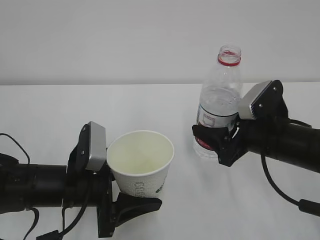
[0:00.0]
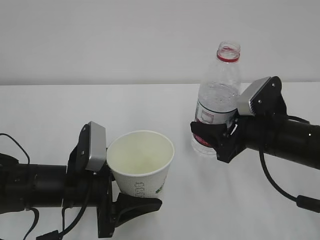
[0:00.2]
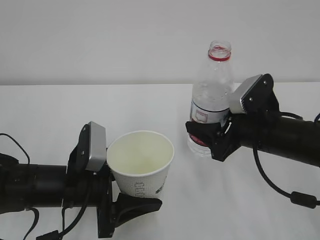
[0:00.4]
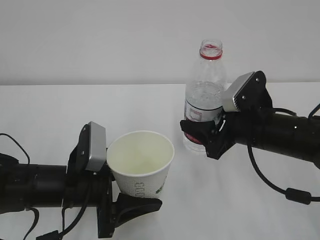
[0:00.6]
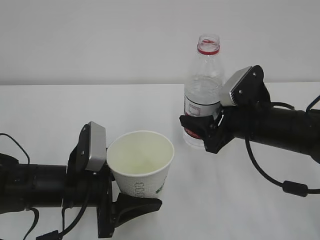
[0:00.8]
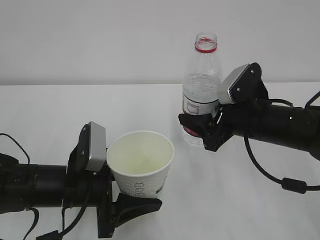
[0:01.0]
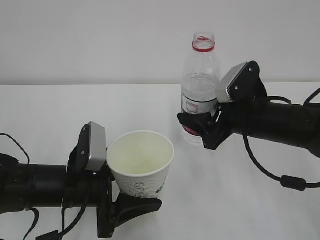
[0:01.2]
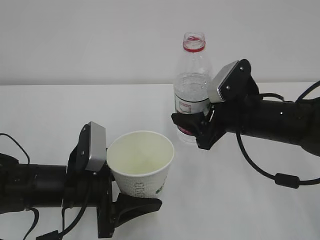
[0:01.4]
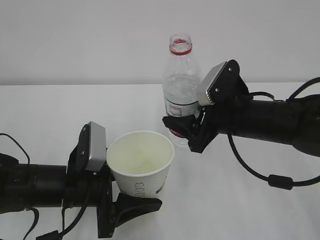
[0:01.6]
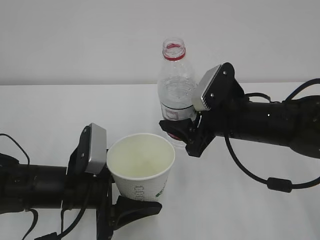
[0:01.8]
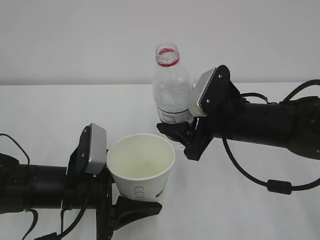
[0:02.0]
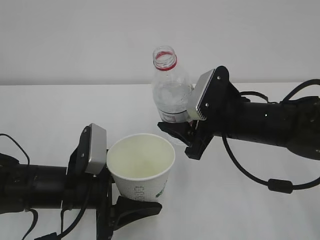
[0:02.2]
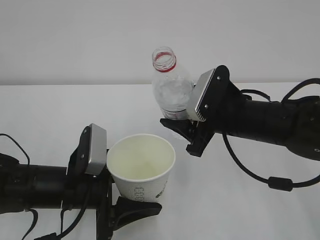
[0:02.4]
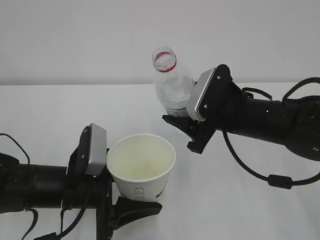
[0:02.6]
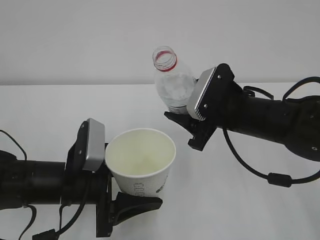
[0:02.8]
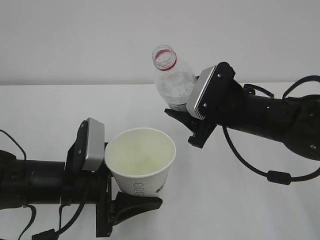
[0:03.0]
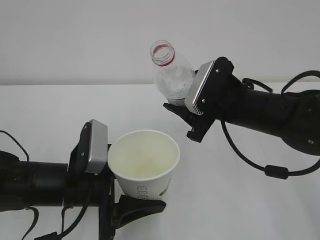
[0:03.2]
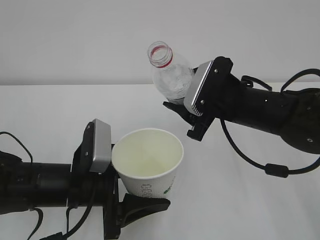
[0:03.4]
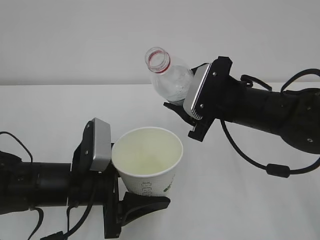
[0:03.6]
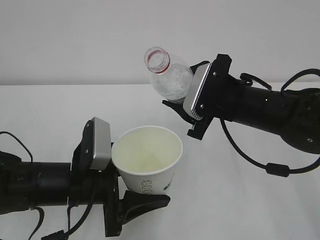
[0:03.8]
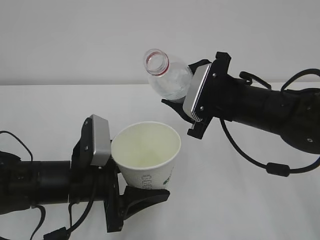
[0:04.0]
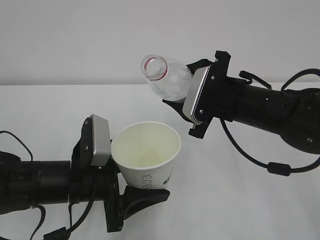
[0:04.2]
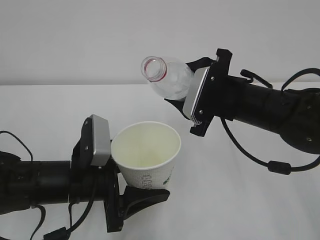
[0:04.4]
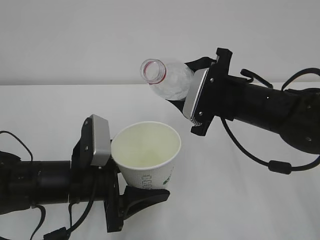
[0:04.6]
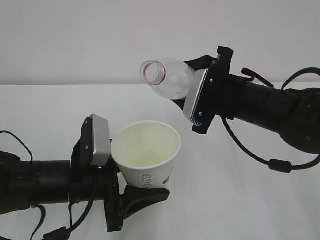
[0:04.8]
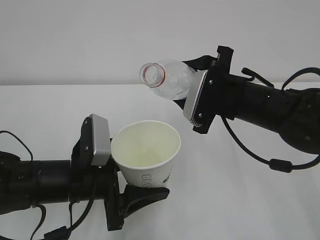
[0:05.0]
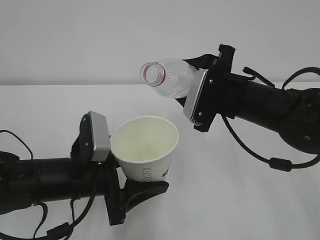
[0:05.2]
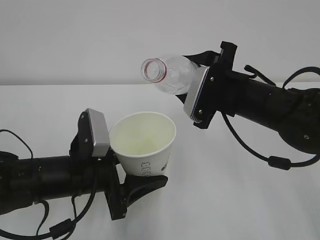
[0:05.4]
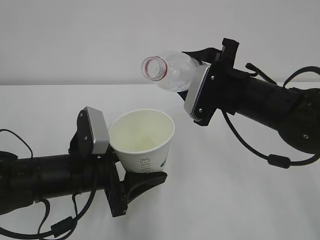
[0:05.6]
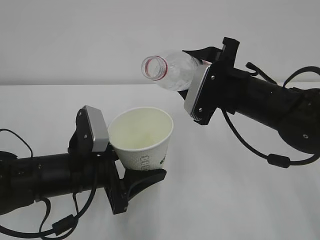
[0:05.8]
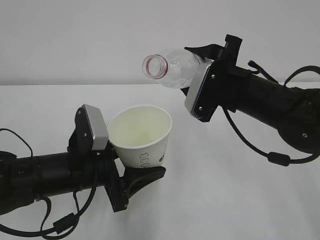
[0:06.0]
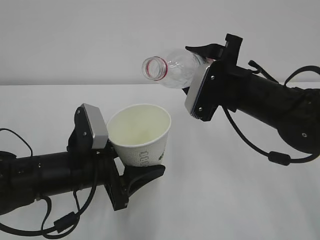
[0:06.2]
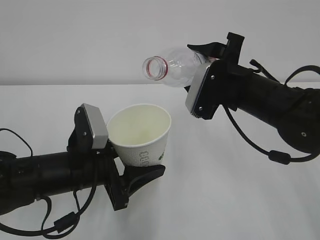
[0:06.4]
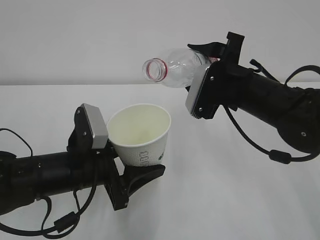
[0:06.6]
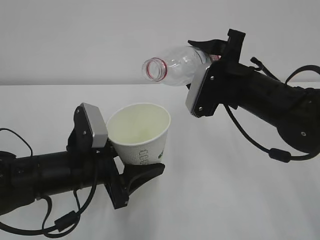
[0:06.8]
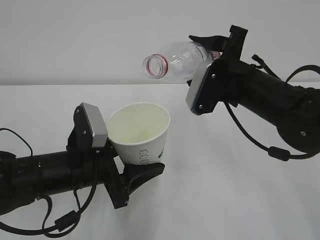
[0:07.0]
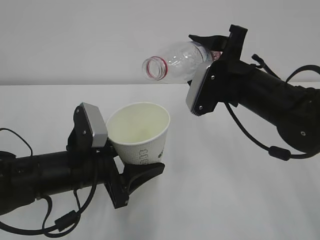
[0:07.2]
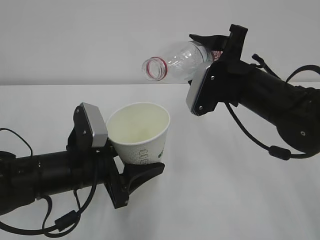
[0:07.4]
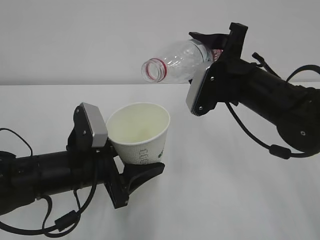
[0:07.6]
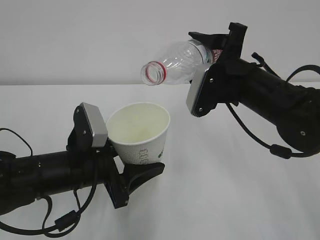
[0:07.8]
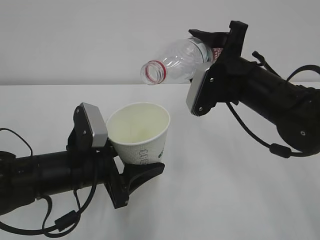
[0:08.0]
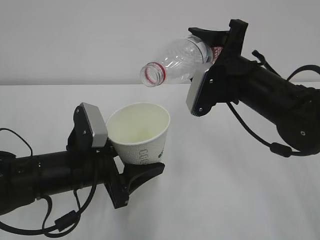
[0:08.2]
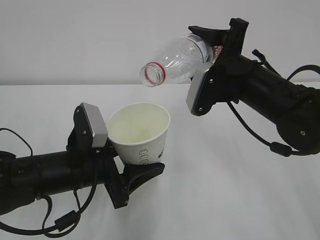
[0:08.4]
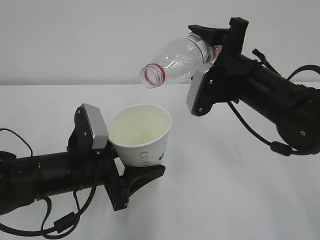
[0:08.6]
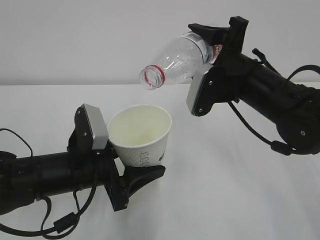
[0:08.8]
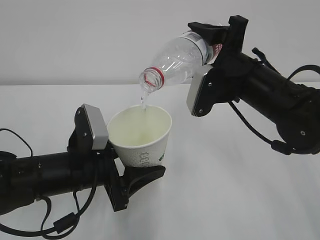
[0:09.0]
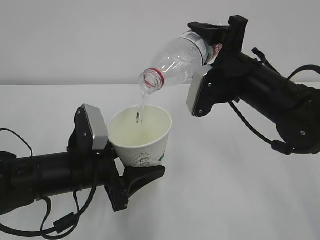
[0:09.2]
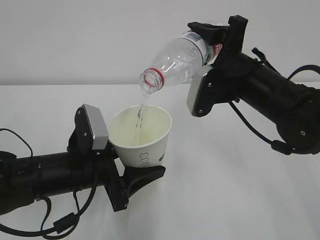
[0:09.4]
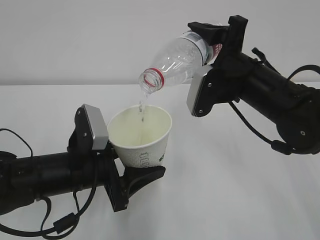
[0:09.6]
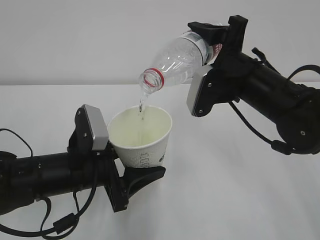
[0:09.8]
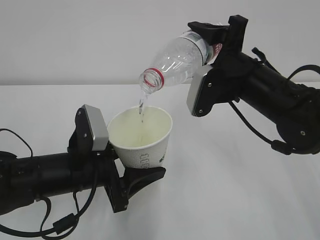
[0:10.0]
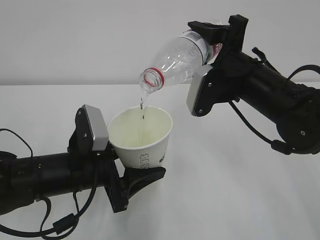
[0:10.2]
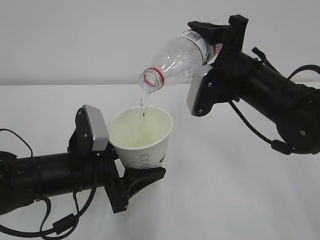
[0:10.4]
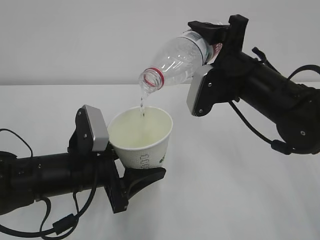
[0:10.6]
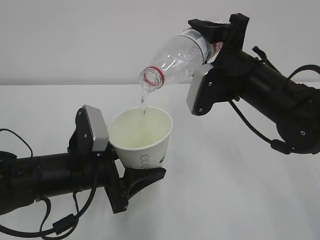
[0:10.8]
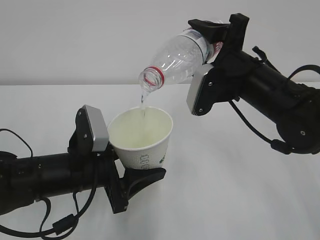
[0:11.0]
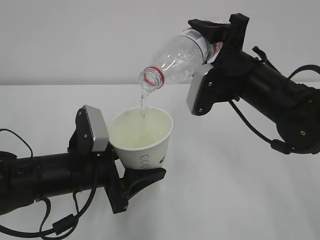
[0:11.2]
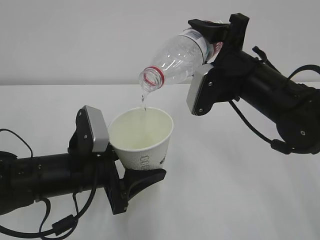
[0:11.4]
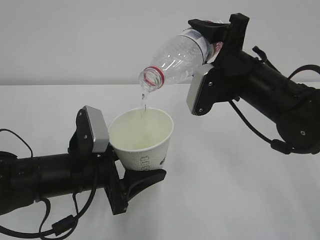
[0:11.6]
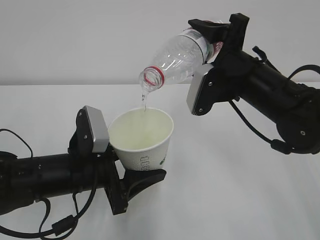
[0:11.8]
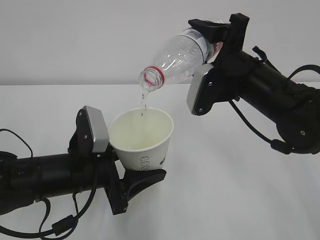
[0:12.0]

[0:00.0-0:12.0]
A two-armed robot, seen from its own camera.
0:00.0 to 0:01.6: The right gripper shifts by about 5 cm.
0:03.0 to 0:04.4: The grippers move only a little.
0:04.4 to 0:06.0: There are only small adjustments of the grippers.
0:06.0 to 0:07.6: The grippers make only small movements.
0:07.6 to 0:09.0: The grippers make only small movements.
0:09.0 to 0:12.0: Both grippers stay put.

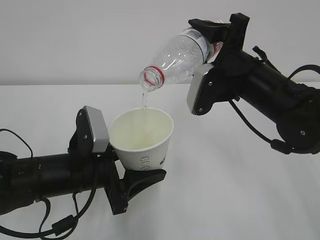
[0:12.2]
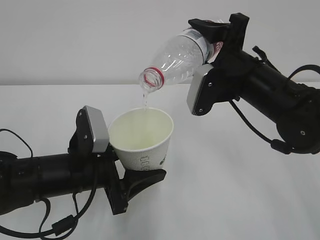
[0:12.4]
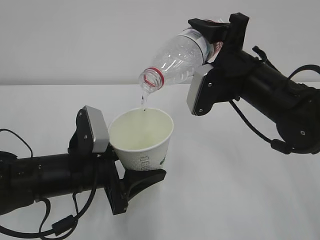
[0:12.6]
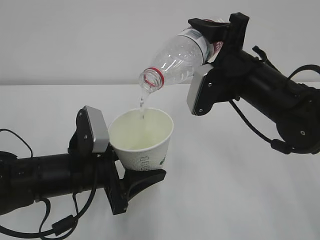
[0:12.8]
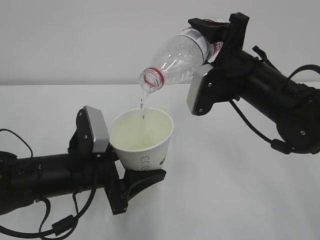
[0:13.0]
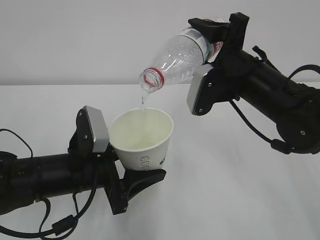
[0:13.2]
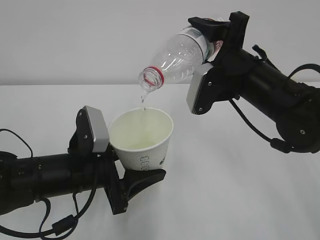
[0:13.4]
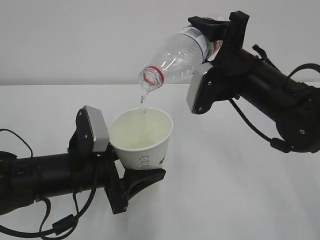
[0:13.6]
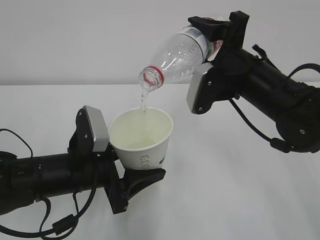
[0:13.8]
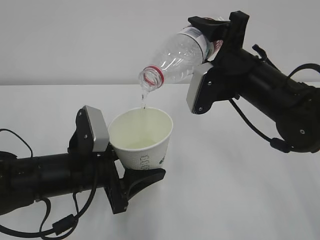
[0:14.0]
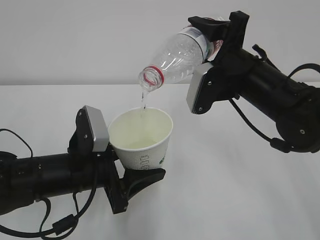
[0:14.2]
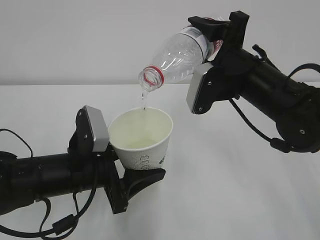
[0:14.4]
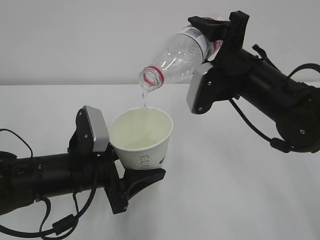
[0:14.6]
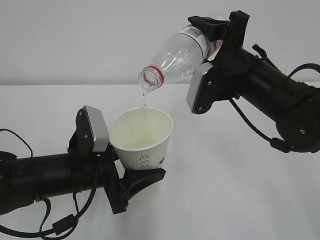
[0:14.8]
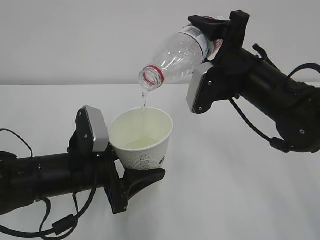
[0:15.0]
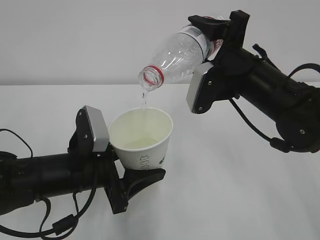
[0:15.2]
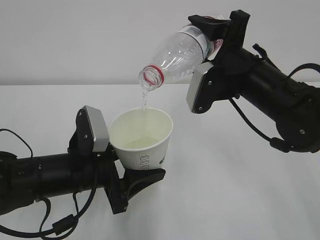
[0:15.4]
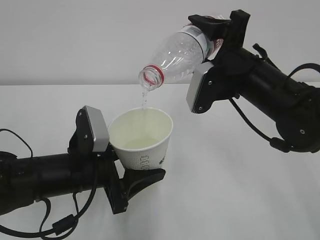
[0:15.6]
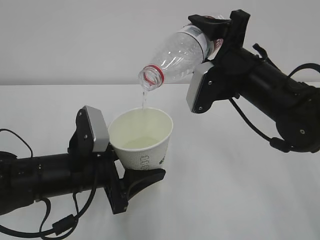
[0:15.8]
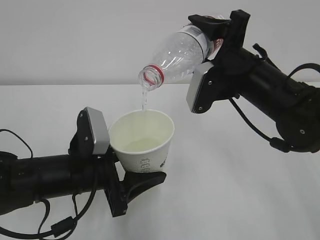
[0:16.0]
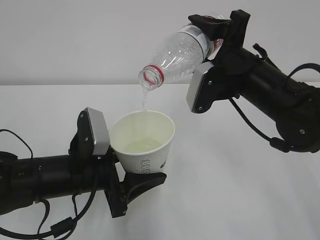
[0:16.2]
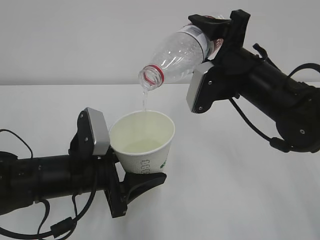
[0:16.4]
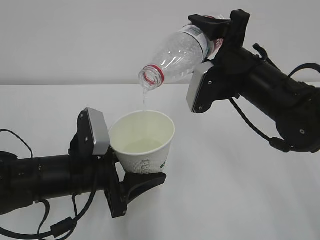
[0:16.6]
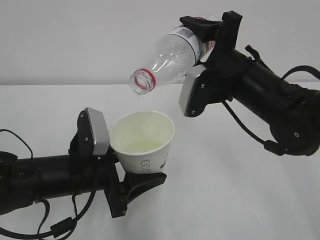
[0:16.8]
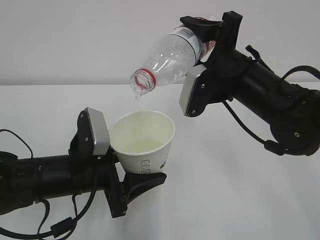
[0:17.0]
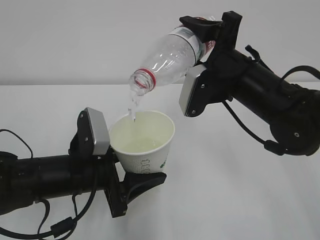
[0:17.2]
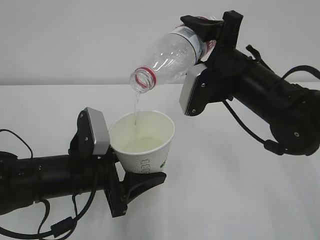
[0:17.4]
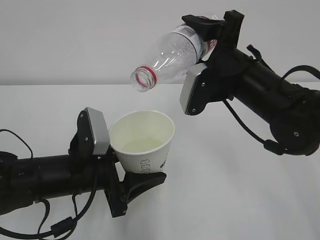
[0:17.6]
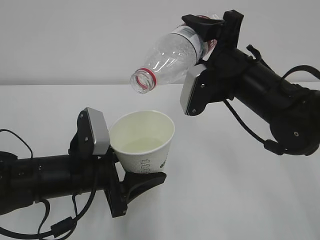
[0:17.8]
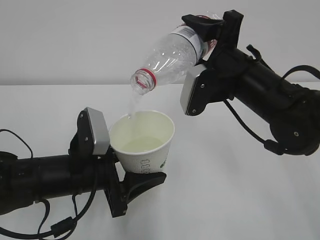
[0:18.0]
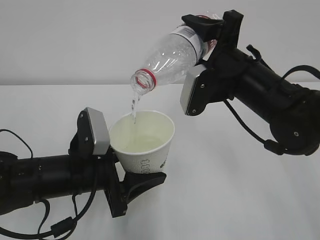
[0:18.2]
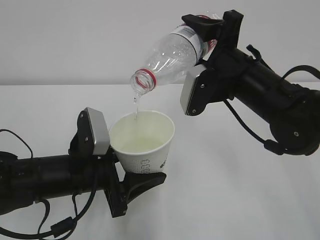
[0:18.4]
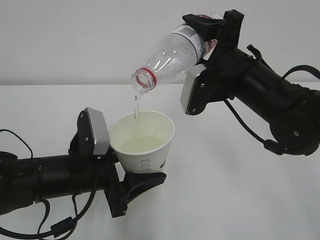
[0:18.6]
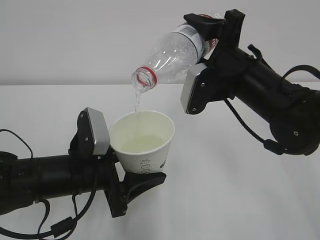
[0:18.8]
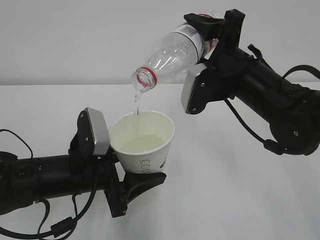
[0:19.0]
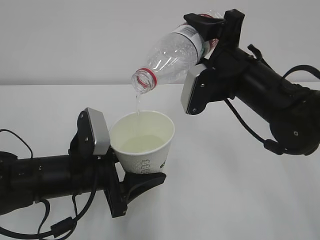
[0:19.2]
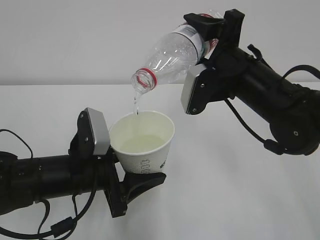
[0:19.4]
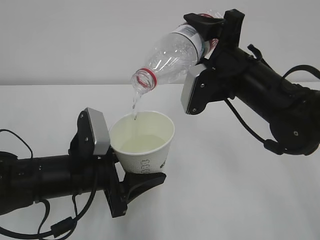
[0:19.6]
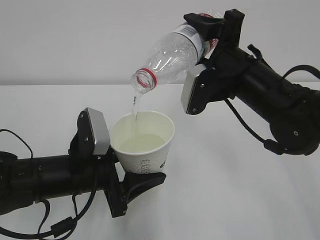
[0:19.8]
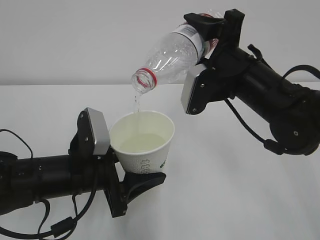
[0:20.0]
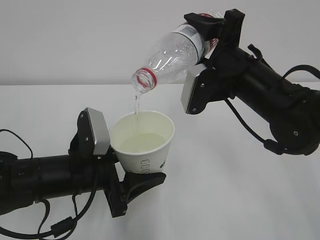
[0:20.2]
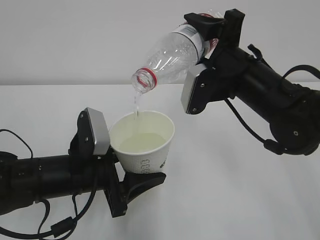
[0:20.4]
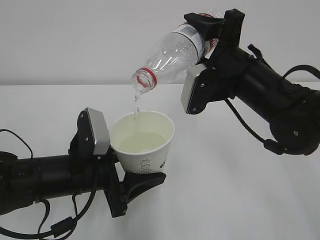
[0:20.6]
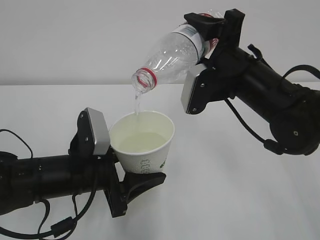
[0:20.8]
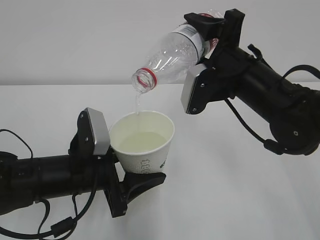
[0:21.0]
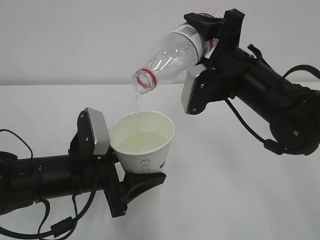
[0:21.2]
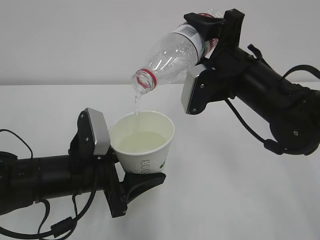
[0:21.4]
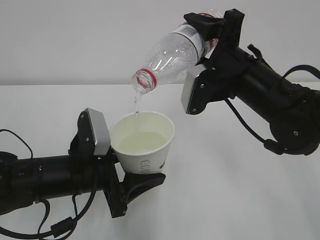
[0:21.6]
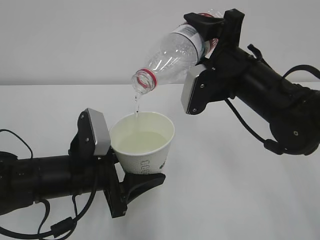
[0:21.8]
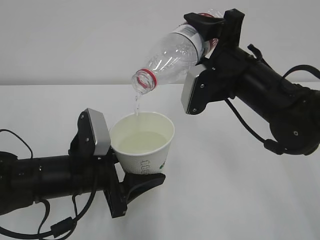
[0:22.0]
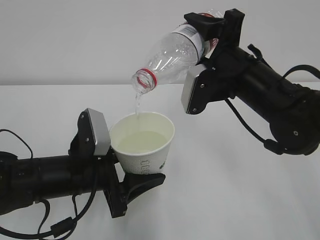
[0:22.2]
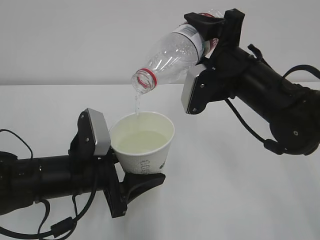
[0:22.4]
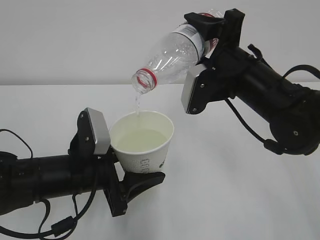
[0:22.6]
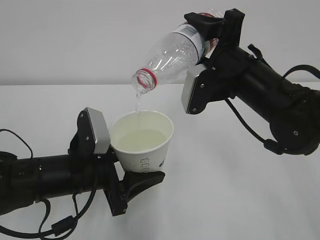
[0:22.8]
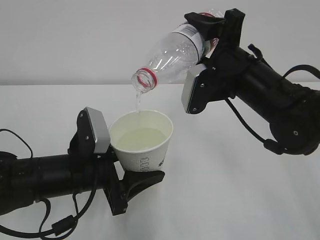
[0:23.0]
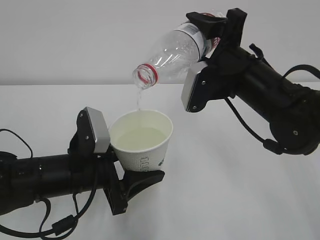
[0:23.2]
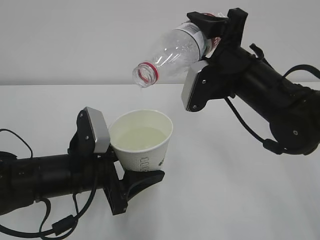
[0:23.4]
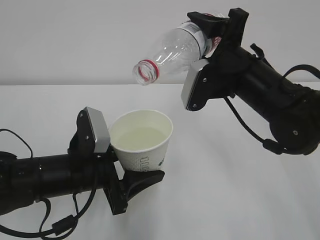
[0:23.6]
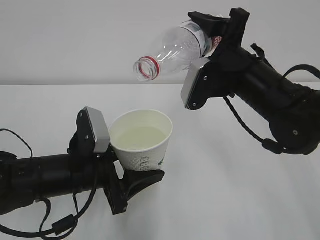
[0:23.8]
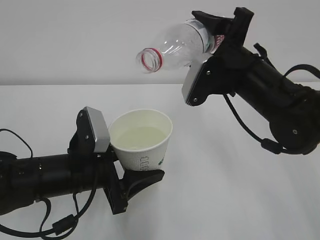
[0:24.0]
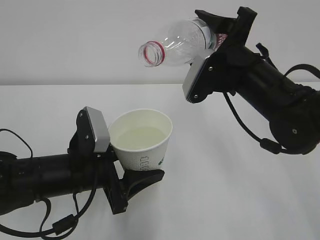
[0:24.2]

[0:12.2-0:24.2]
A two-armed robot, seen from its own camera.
0:12.2 to 0:18.2: Both grippers stay about where they are.
0:18.2 to 0:22.6: Both grippers stay put.
0:22.6 to 0:24.2: There are only small adjustments of the grippers.
